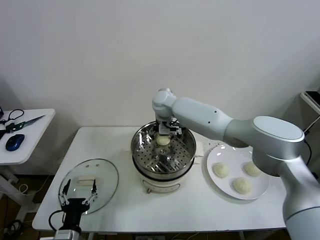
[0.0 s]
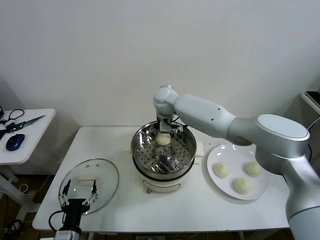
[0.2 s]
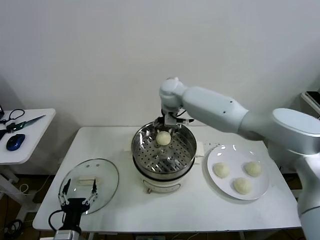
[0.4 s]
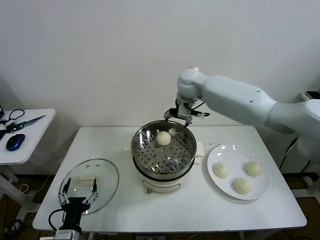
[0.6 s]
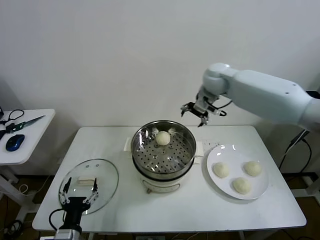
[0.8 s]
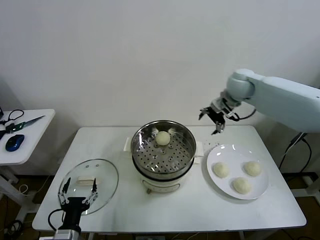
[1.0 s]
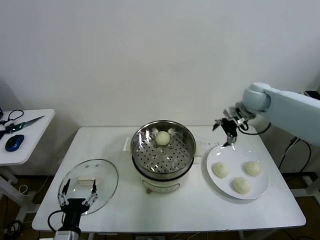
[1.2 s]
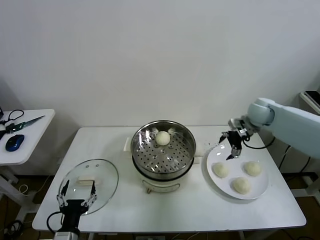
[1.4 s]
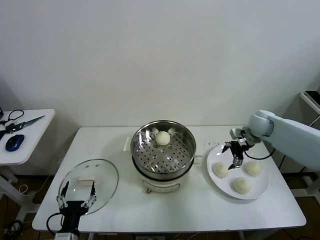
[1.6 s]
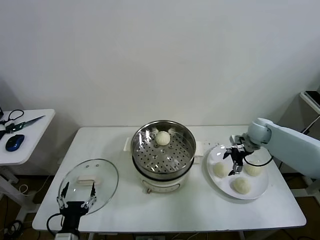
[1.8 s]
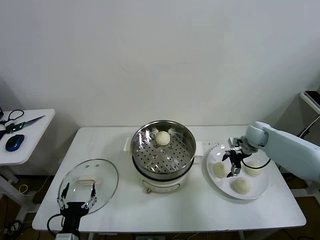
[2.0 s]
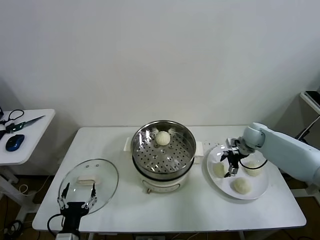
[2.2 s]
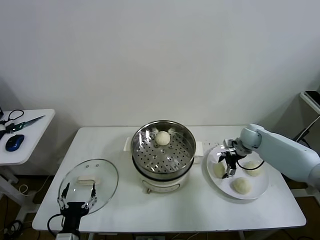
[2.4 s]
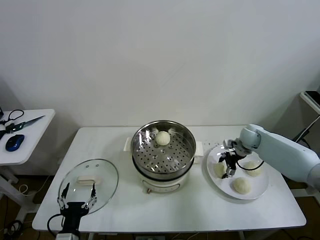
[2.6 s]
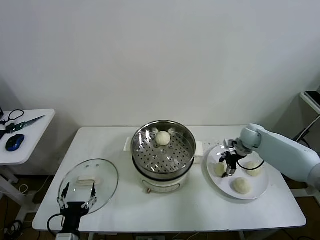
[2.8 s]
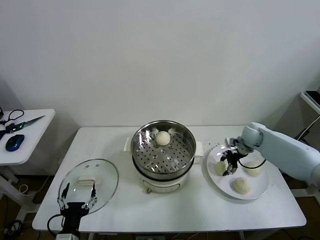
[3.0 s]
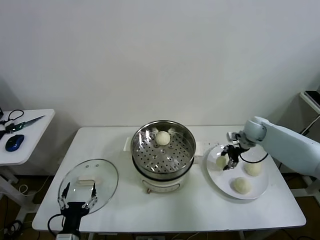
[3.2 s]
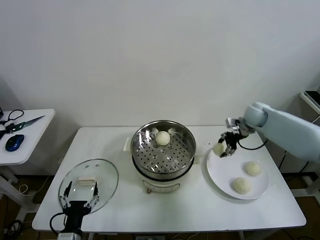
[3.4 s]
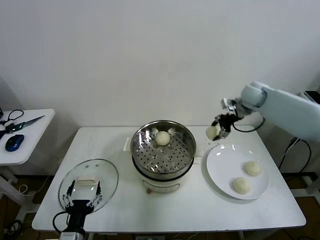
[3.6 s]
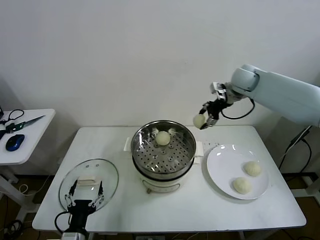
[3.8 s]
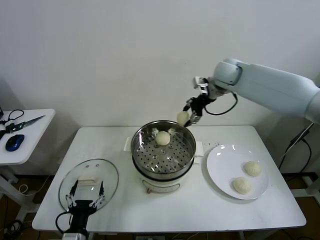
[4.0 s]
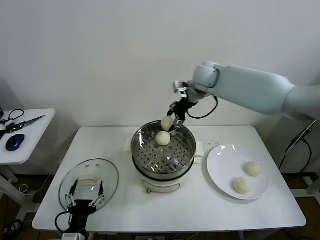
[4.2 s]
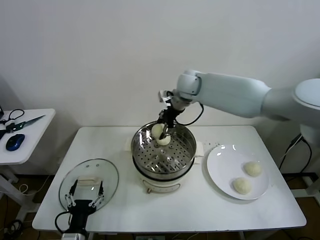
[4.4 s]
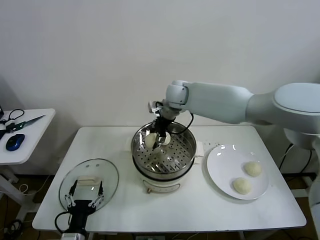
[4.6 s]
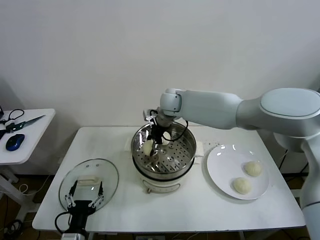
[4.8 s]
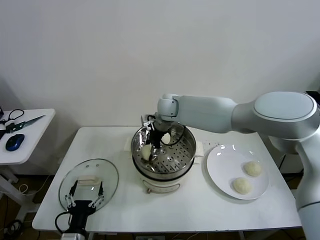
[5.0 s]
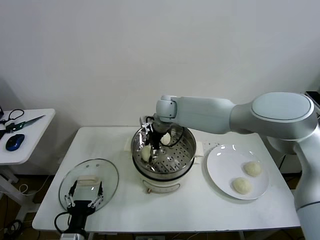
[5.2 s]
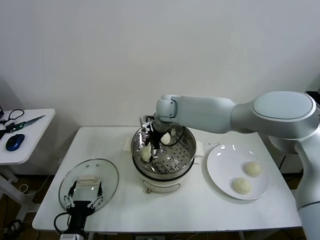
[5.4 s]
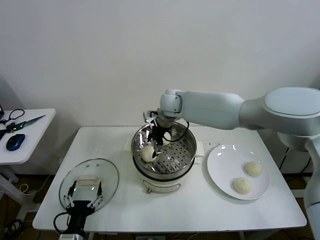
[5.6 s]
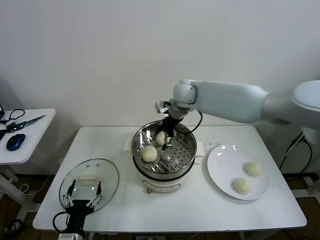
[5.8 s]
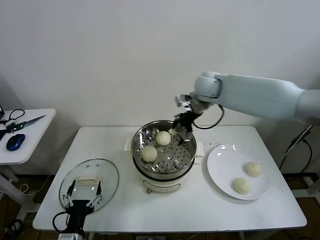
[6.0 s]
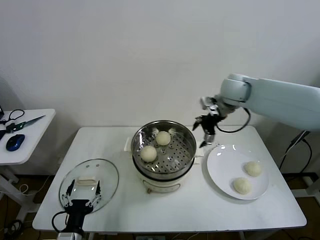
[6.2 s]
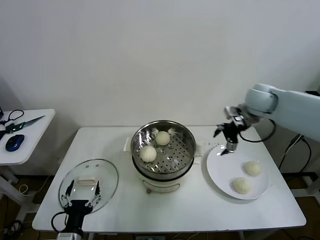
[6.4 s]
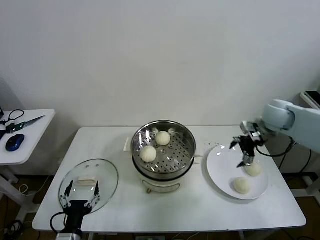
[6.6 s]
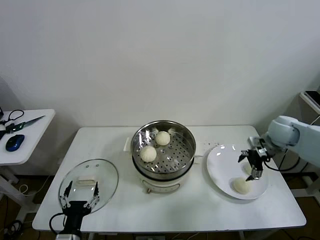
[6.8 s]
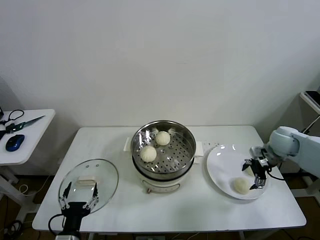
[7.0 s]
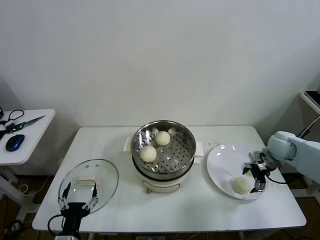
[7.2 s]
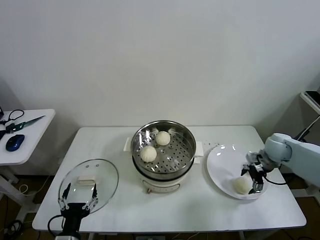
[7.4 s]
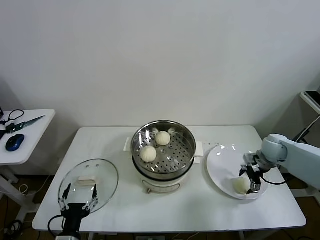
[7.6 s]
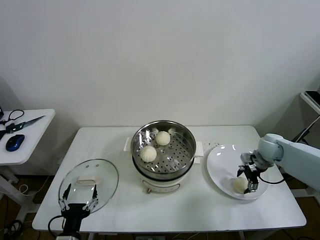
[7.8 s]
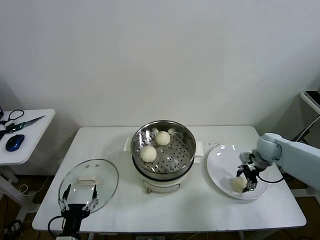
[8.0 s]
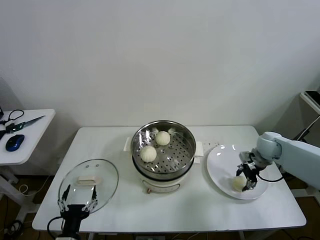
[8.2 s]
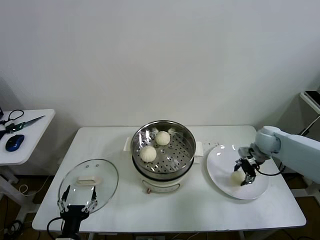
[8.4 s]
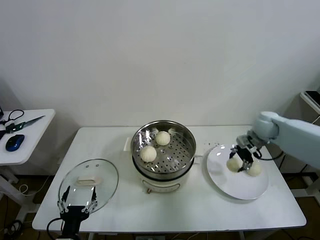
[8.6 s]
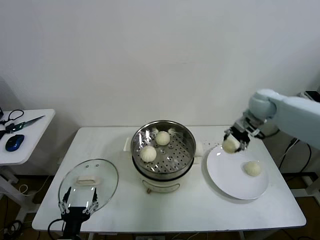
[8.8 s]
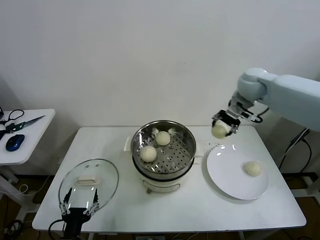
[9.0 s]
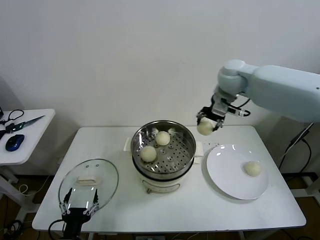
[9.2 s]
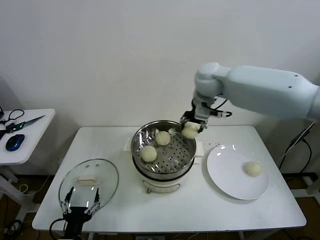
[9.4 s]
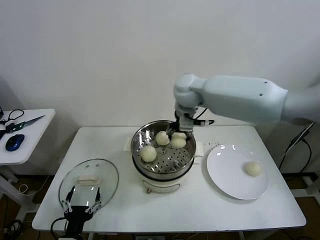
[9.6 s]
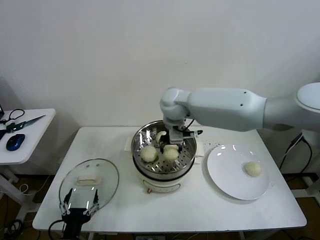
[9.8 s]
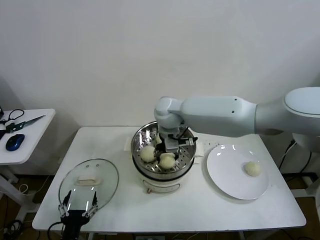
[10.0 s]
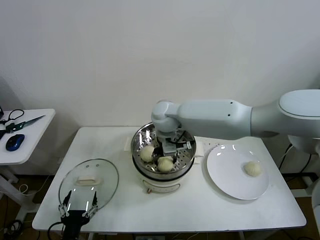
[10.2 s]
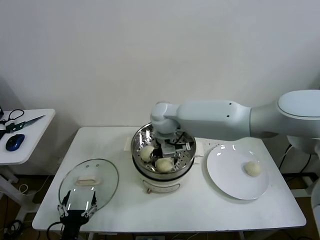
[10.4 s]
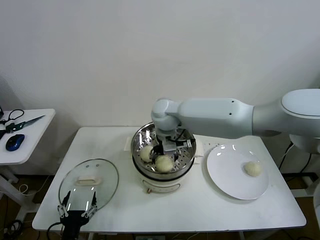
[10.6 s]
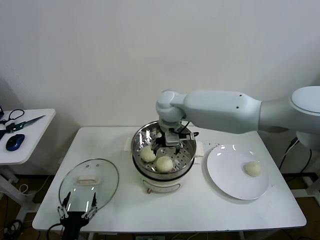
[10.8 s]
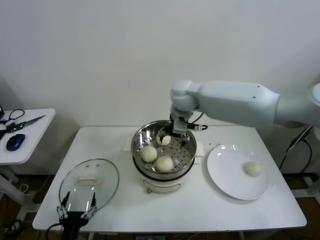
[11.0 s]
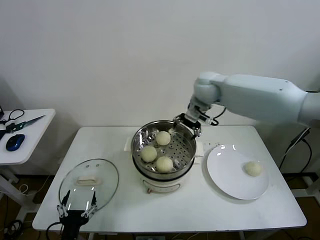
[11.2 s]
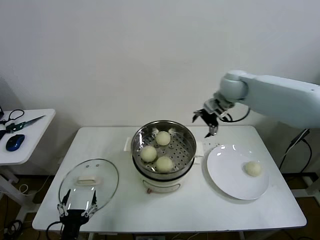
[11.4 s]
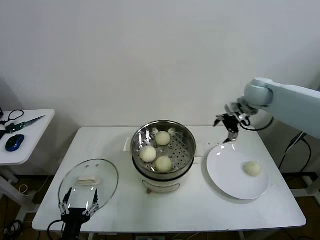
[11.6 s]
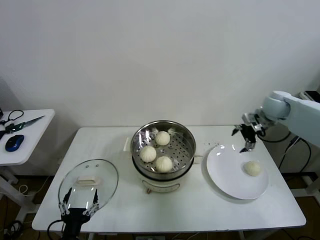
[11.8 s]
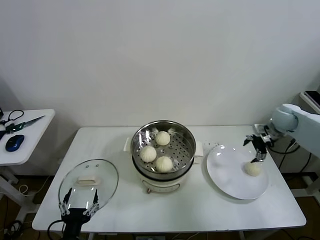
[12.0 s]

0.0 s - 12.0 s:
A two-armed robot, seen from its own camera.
Task of the whole recording: take steamed baozi put them in steamer then cover it.
Step, 0.4 s - 2.8 s: Grasp the baozi in the plate with right gripper.
Step, 3.0 s - 5.4 s: Place the baozi on the steamer with right gripper.
Step, 5.6 s - 8.0 s: Grasp the baozi in the plate with right gripper.
Step, 8.2 s - 10.4 s: Place the baozi on the steamer with right gripper.
0.0 s - 1.6 s: The right gripper shifts some 35 cm to the right.
1.6 s - 3.0 s: The right gripper closes up.
3.0 s - 4.4 s: The right gripper travels to the left and upward by approximately 35 cm.
4.4 s - 6.0 s: The right gripper travels to the right by some 10 cm, and opens its fingers.
6.0 s - 7.6 s: The right gripper heads to the right and downward, covering about 30 cm.
7.6 s - 9.0 s: The right gripper is displaced upward and to the left by roughly 25 cm, and closes its fingers.
9.0 s - 10.4 s: The right gripper goes about 25 cm to the left, and opens up.
10.4 s - 12.0 s: The right gripper is displaced to the right by approximately 40 cm.

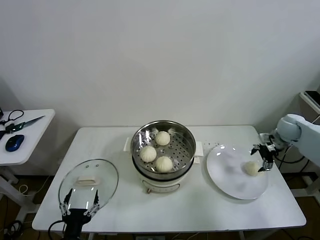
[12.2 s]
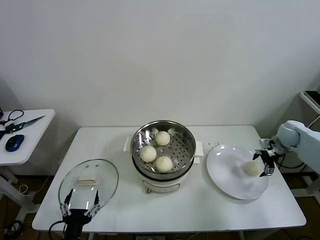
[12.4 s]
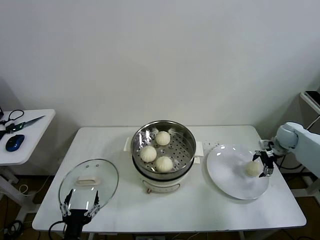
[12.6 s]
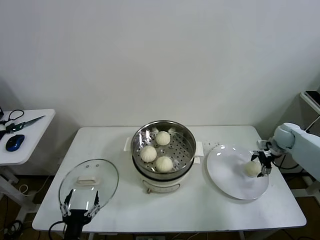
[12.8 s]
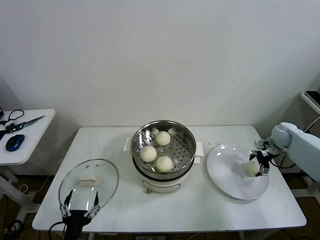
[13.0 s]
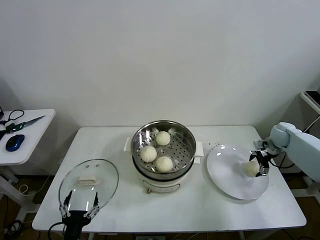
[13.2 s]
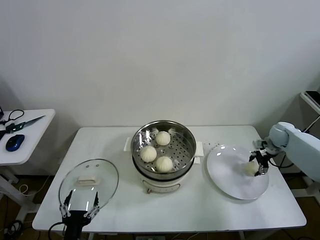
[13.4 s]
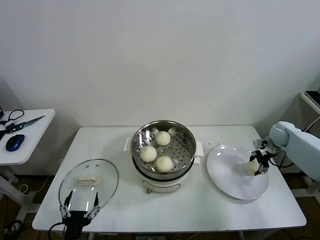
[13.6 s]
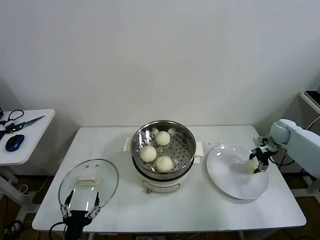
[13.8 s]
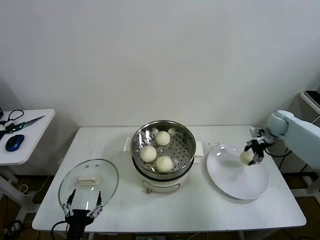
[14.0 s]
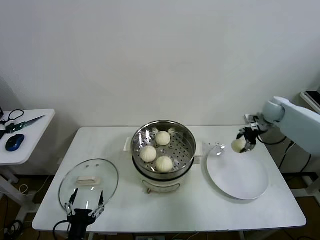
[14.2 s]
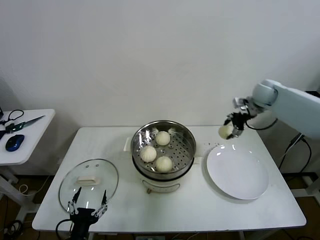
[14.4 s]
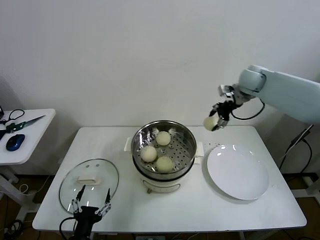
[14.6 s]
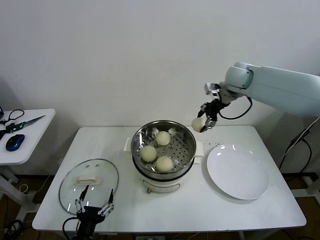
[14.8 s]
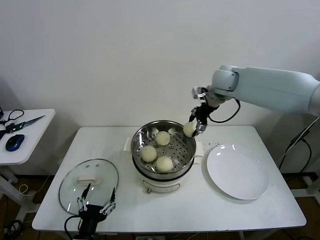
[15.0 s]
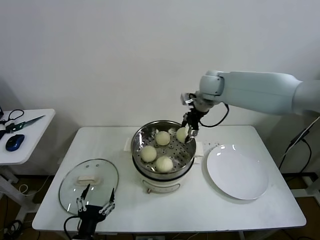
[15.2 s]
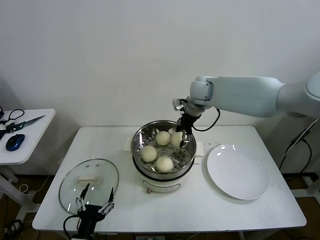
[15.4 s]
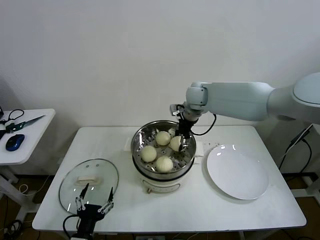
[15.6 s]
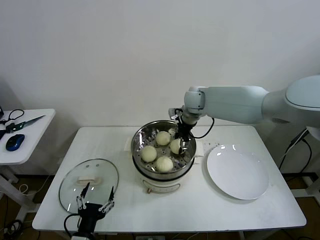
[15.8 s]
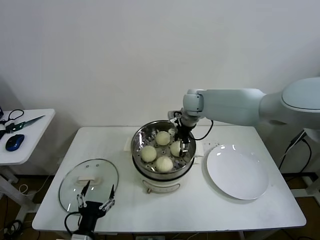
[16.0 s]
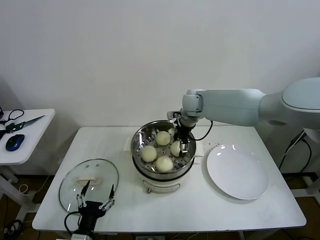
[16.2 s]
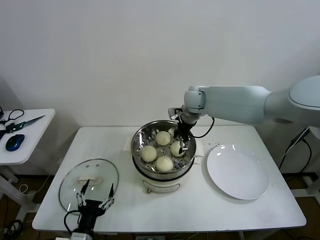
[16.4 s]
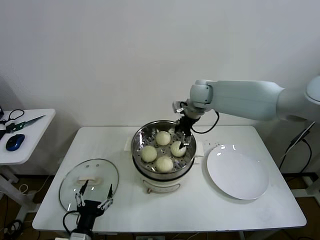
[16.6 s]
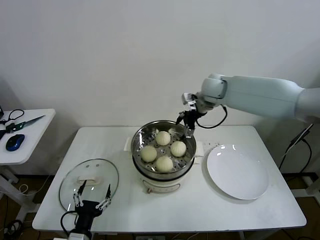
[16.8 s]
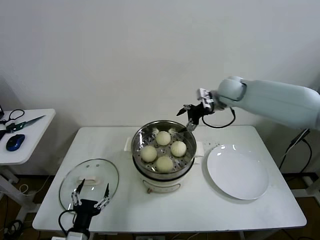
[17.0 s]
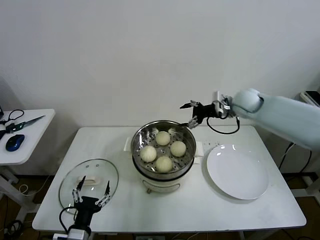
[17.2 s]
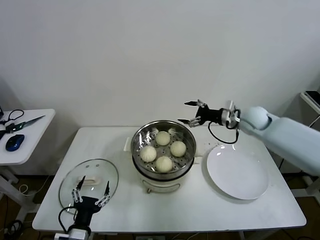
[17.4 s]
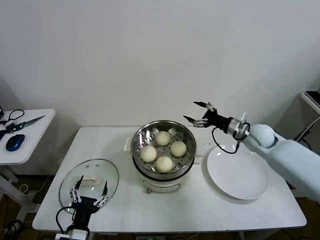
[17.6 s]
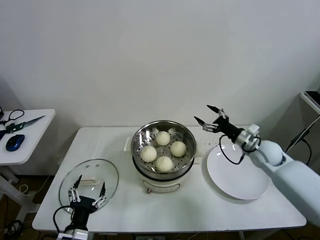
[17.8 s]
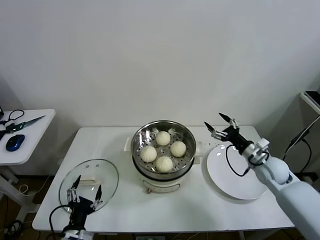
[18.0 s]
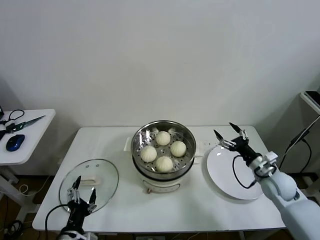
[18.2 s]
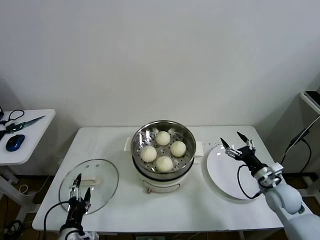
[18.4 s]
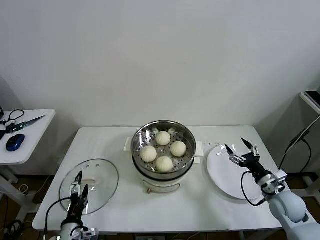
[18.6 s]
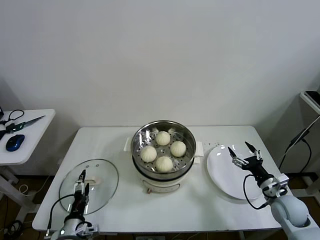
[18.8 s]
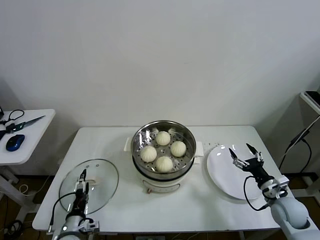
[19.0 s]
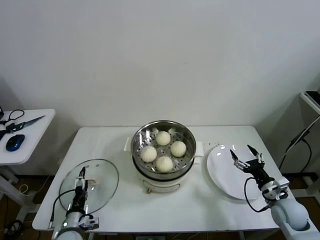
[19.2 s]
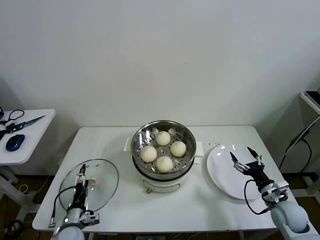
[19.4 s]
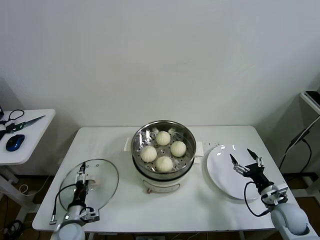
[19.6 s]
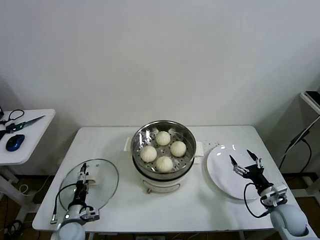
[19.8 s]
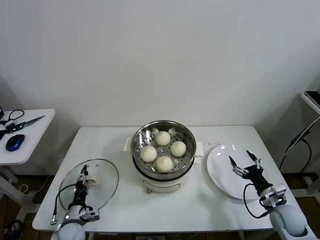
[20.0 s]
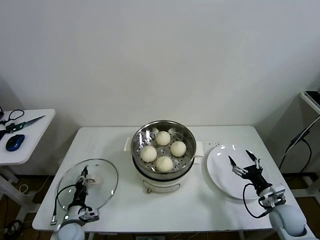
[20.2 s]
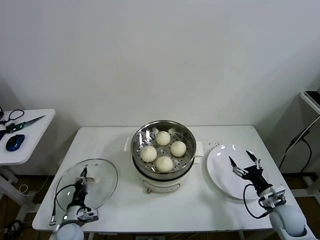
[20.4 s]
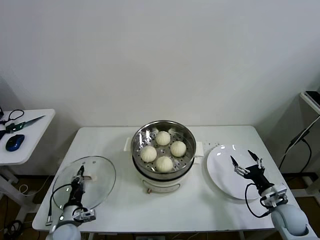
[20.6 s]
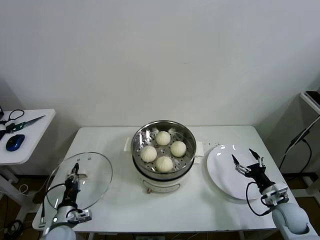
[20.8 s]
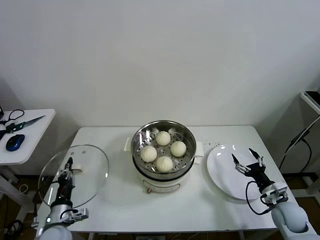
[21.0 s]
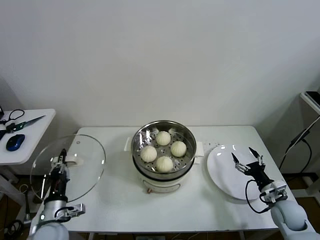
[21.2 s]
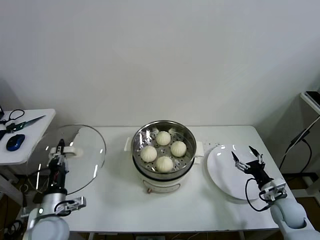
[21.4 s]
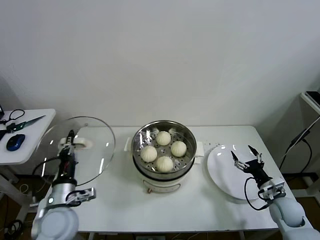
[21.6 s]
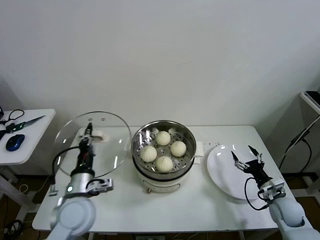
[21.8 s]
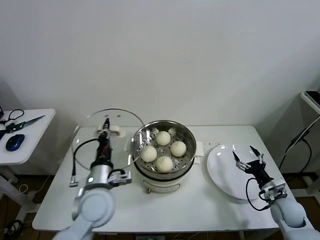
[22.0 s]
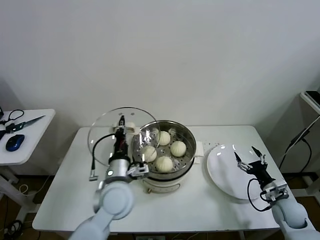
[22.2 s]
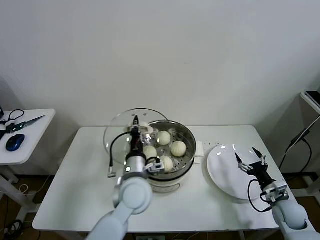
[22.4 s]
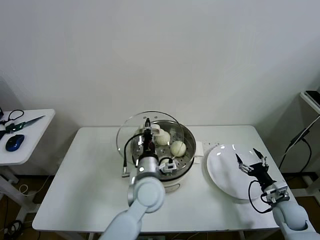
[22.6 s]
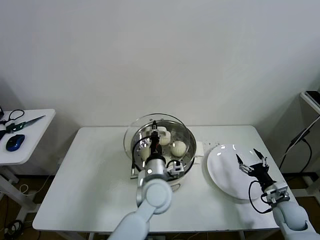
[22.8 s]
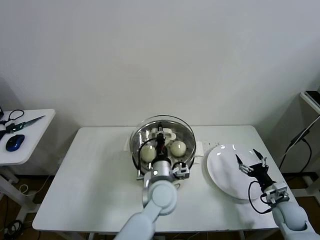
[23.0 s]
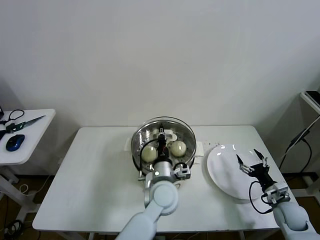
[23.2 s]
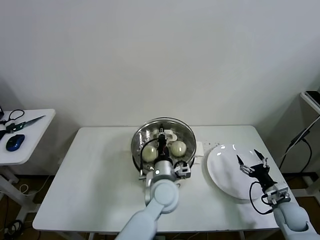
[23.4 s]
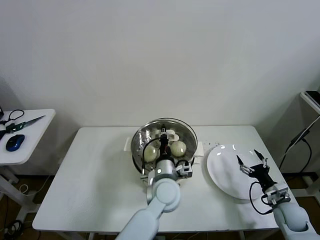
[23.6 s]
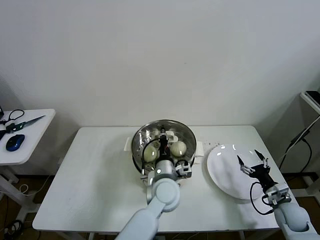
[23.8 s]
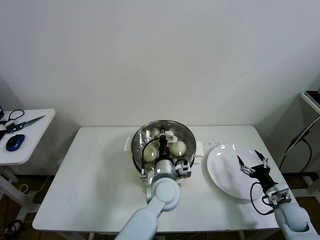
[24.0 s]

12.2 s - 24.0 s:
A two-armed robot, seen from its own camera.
Task of the whole recording: take steamed baozi put them in steamer then cover it.
Step, 13.6 s - 16.2 s: Place the baozi on the steamer with right gripper.
Step, 16.4 s - 20.2 s: Grasp the pot lid with left gripper.
12.2 s - 13.6 s: The right gripper goes approximately 5 cm downward, and closes.
13.6 s - 15.2 s: The right gripper shifts some 35 cm to the left and upward.
15.2 s - 16.6 s: The right gripper opens.
16.6 s - 18.2 s: The right gripper travels to the right, downward and backward by about 40 cm.
18.2 s - 19.6 s: The left gripper is displaced downward, forward and to the left by some 15 cm, while the right gripper heads backward and downward, covering roughly 10 cm.
19.6 s - 21.0 s: The left gripper is displaced upward by roughly 5 cm, and closes its fingers.
21.0 s - 22.6 s: The left gripper goes about 30 cm to the right and upward.
22.6 s - 24.0 s: The left gripper is displaced to the right by roughly 5 cm.
